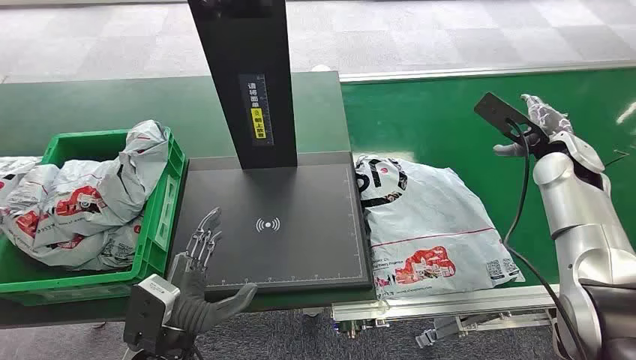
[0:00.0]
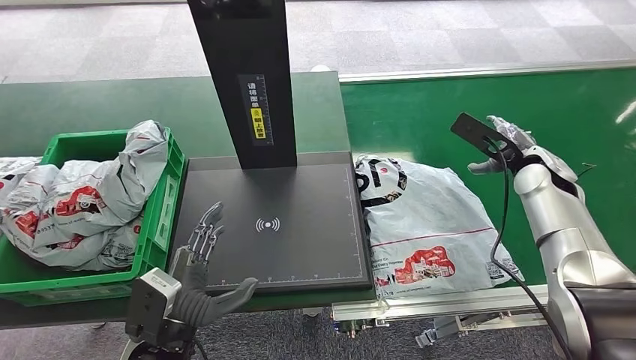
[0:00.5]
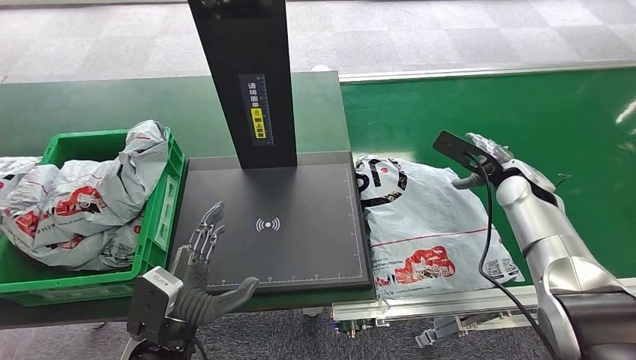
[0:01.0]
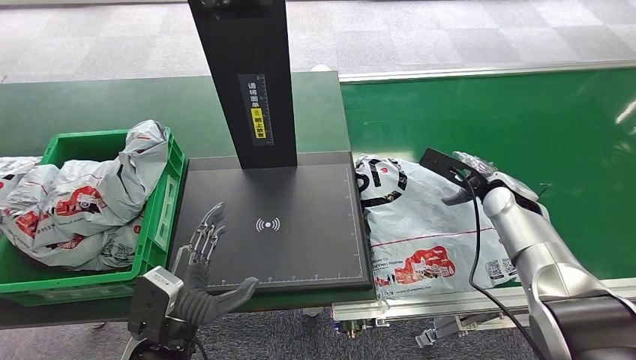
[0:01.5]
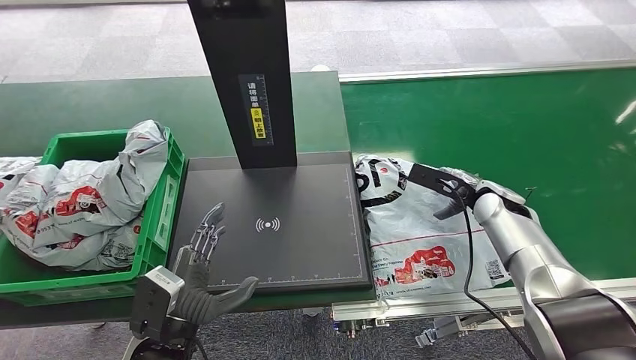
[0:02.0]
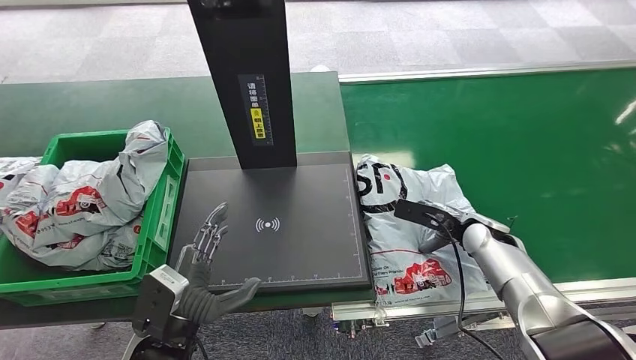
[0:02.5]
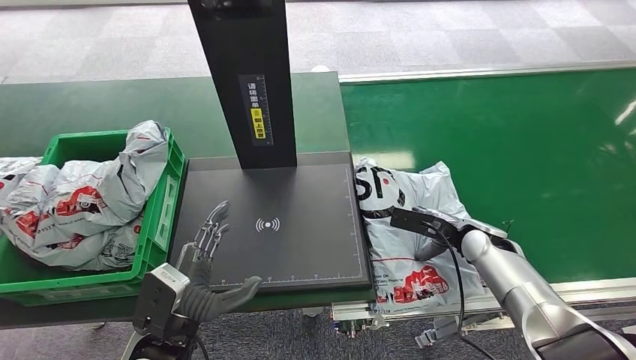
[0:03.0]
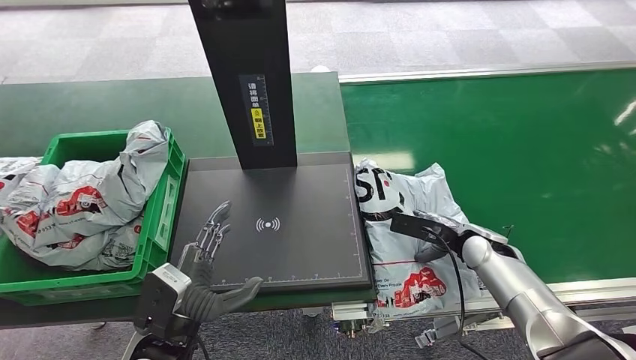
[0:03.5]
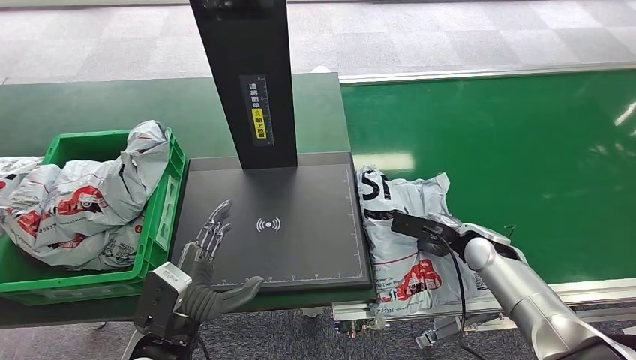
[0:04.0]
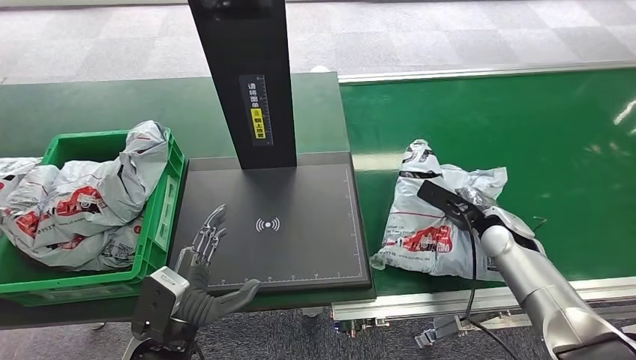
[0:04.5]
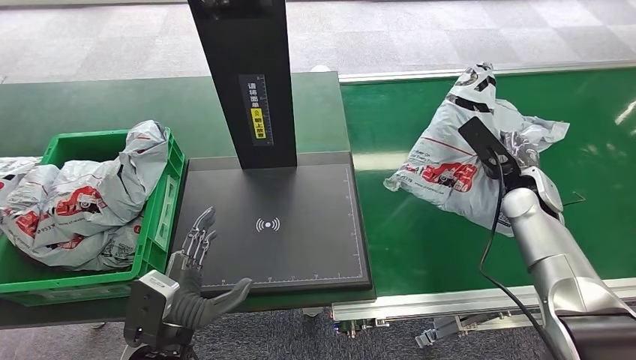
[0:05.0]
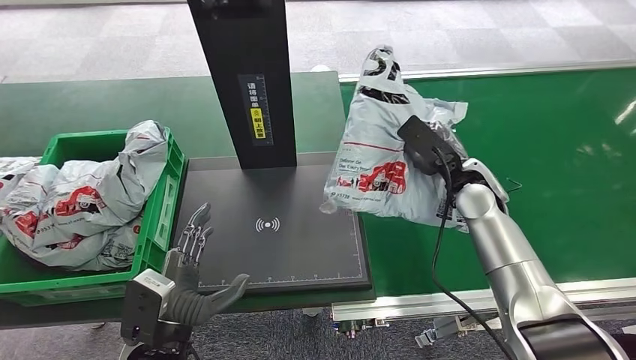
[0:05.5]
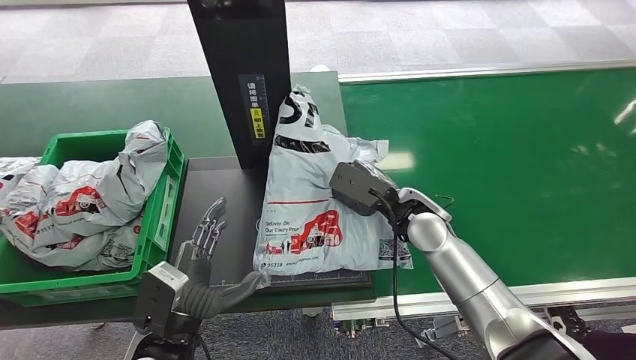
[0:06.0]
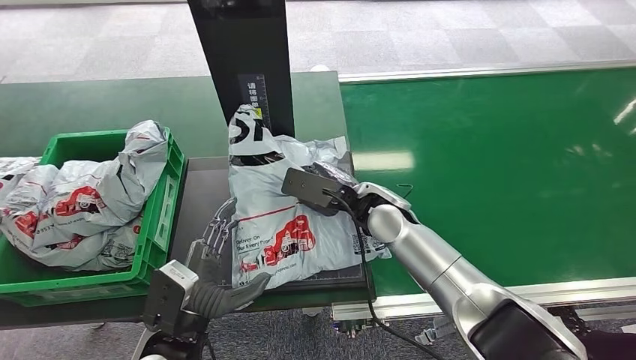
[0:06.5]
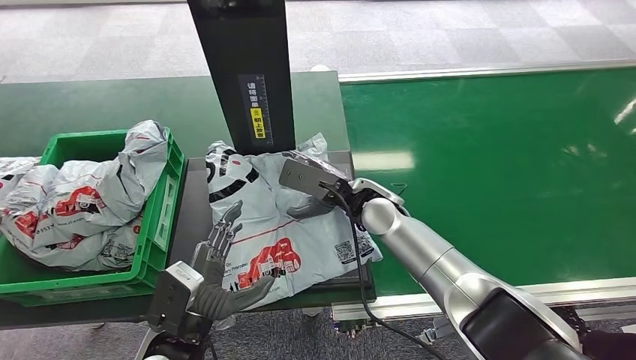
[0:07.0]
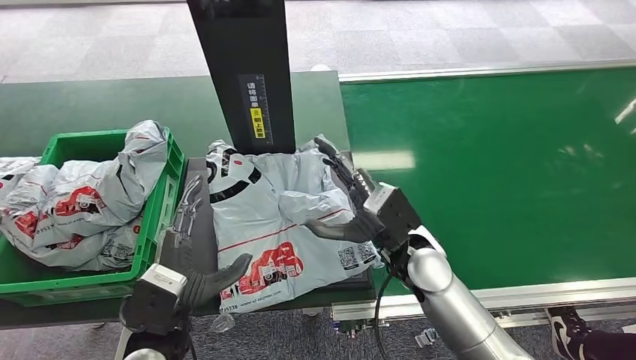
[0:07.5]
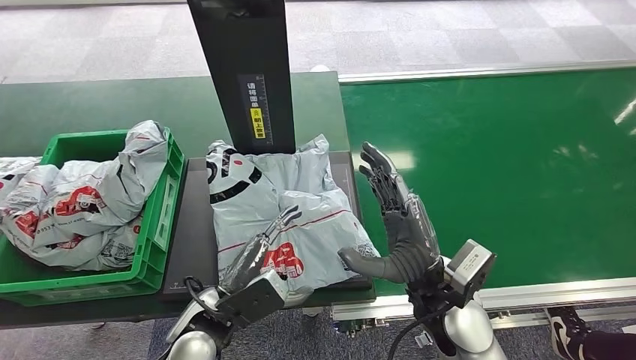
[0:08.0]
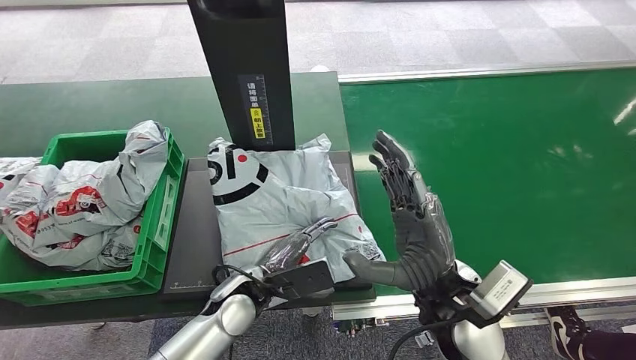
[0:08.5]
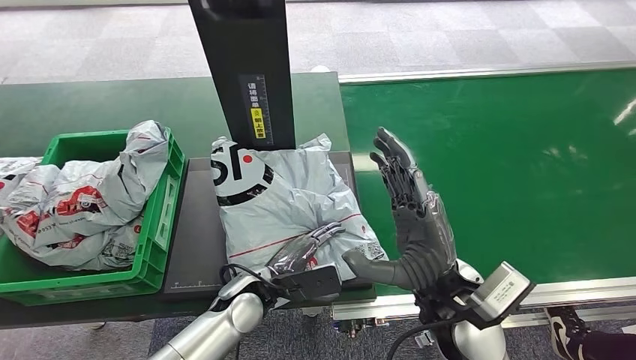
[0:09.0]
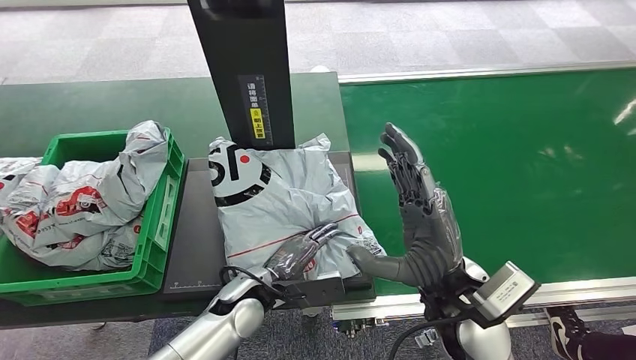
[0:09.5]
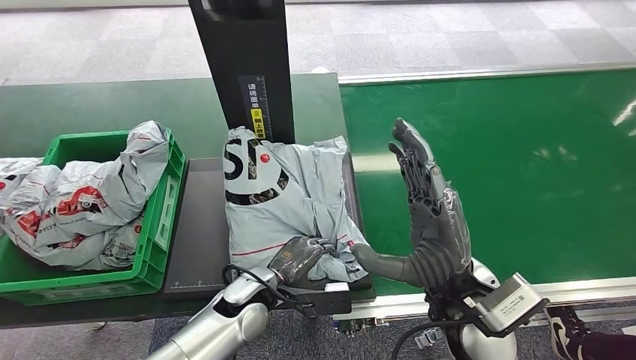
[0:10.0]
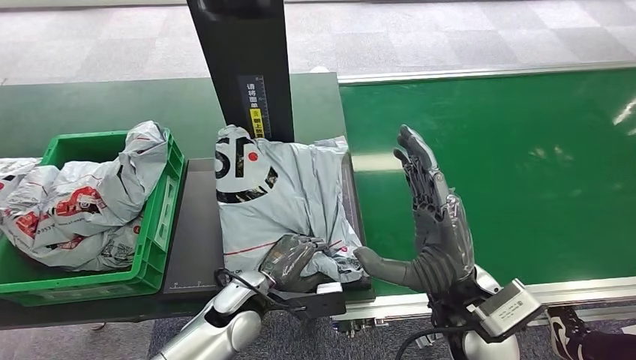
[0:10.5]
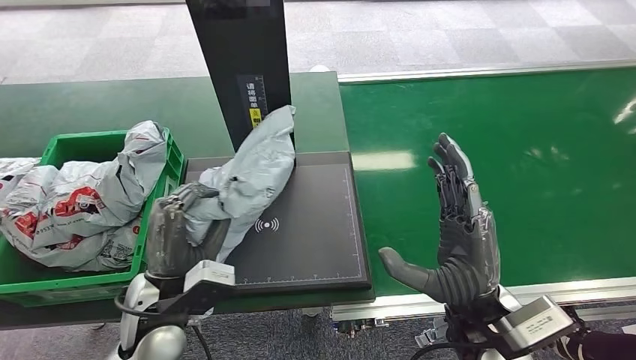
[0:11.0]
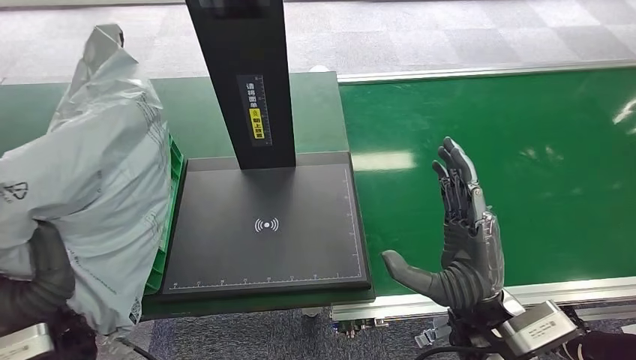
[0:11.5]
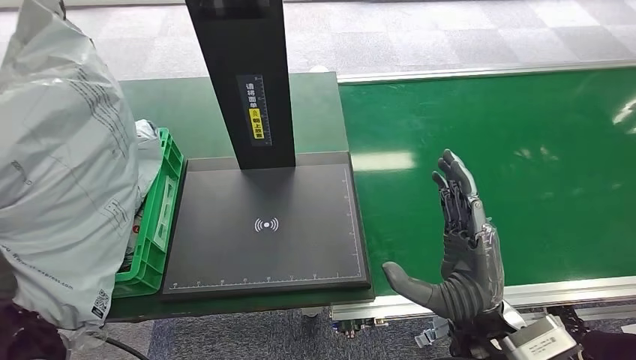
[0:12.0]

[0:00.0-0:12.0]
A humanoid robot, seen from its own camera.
Task of the whole recording: Weigh the package on the weighing device and place it in the left basket.
Step, 0:00.0 to 0:05.0: Pick up the package from the conveyor belt.
Step, 0:05.5 to 0:08.0: Place the package onto the inbound machine.
0:02.0 to 0:04.0: The right hand is displaced downward and backward by some 10 cm.
0:06.0 to 0:08.0: The left hand shifts by approximately 5 cm. Meanwhile the right hand travels backward by some 15 cm.
0:08.0 to 0:10.0: The left hand moves downward and forward, roughly 10 cm.

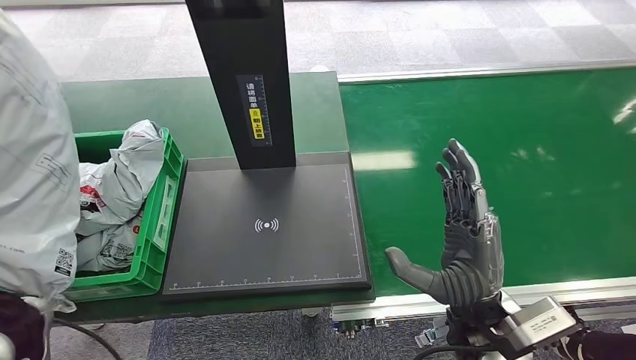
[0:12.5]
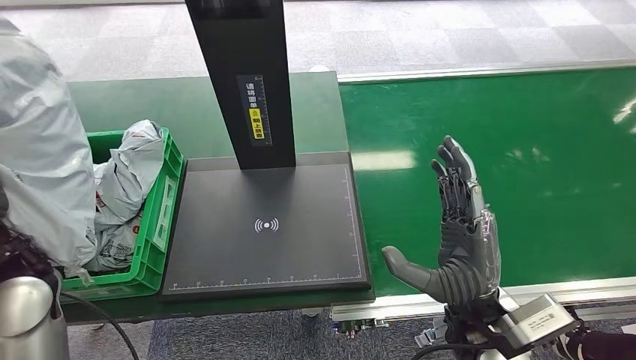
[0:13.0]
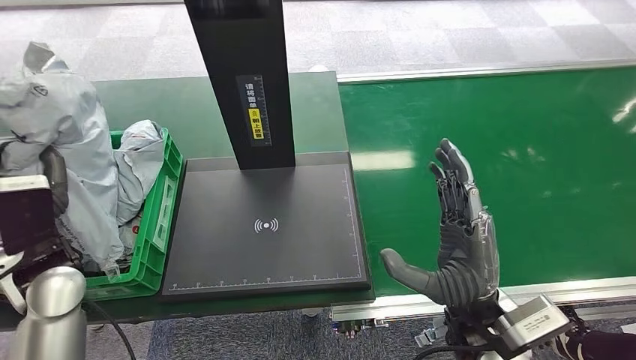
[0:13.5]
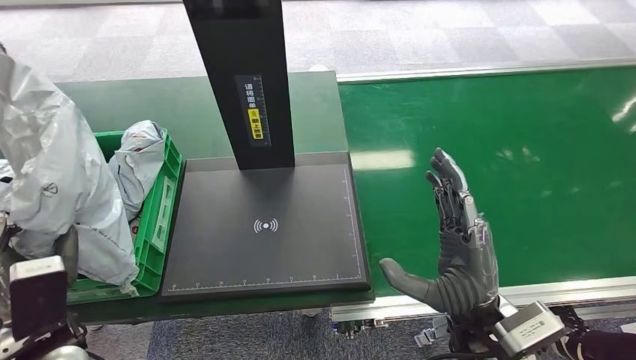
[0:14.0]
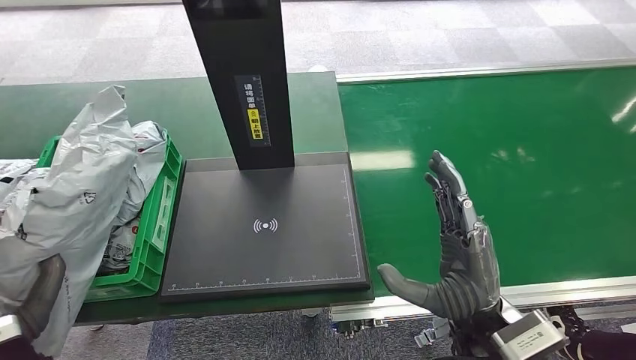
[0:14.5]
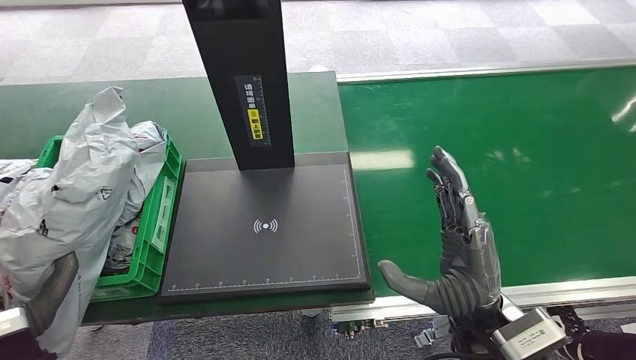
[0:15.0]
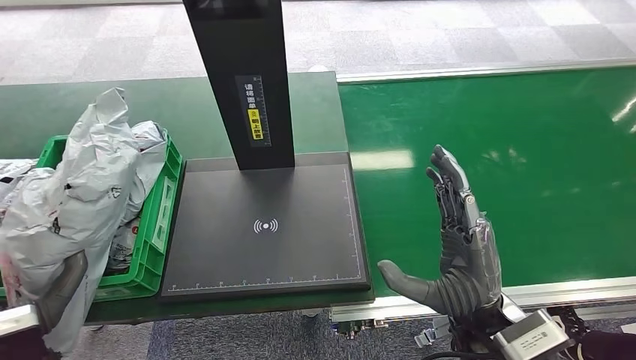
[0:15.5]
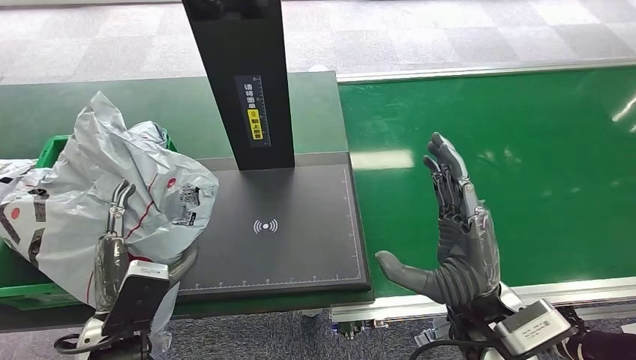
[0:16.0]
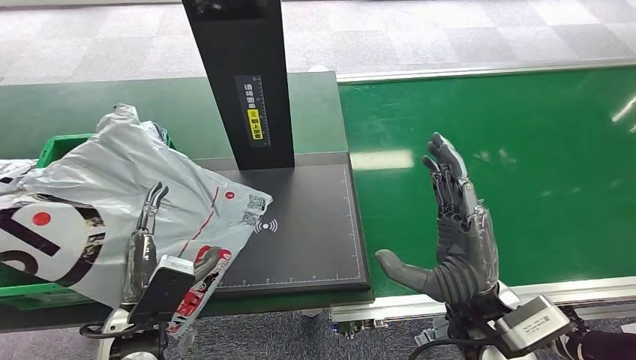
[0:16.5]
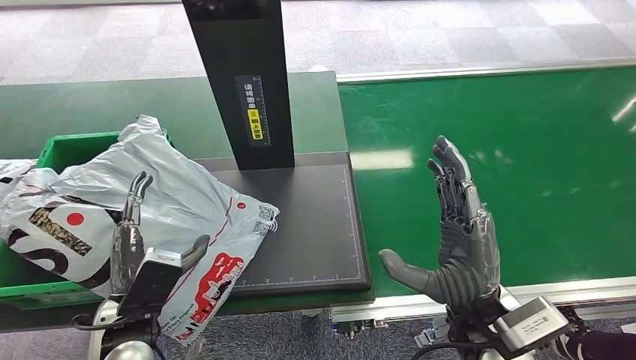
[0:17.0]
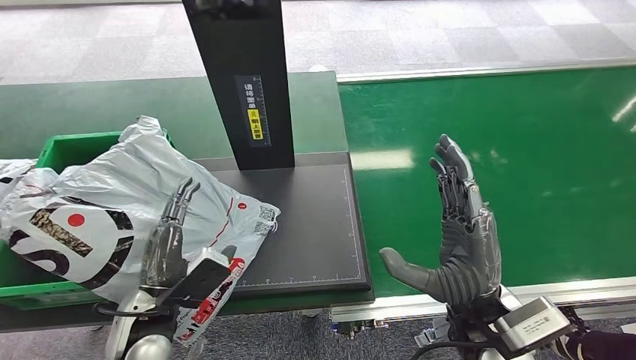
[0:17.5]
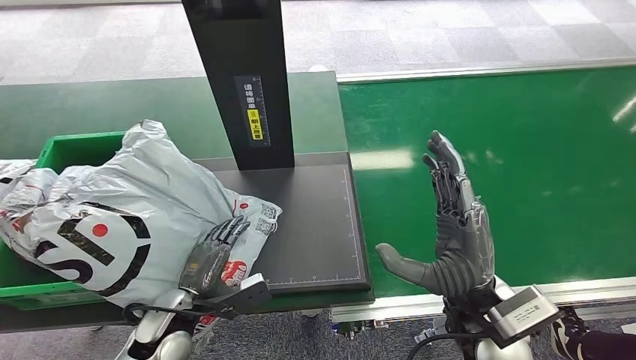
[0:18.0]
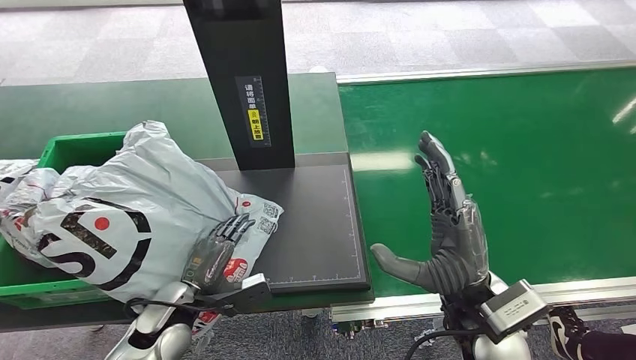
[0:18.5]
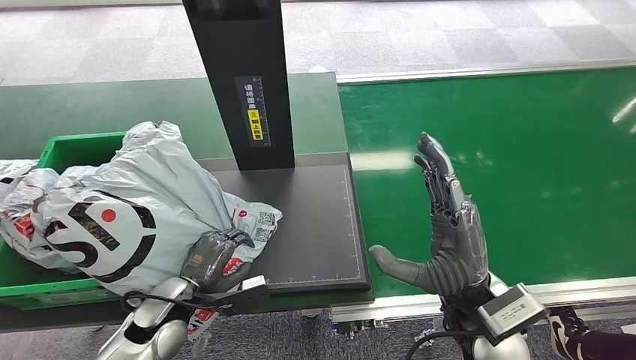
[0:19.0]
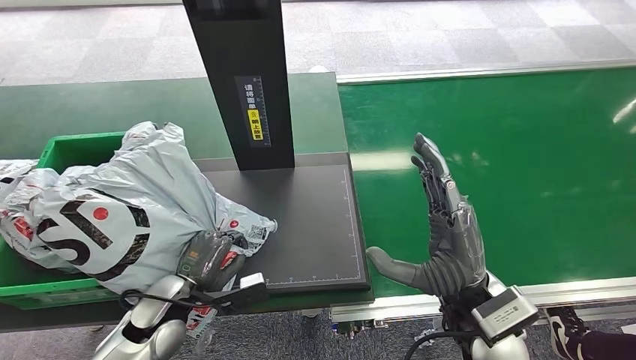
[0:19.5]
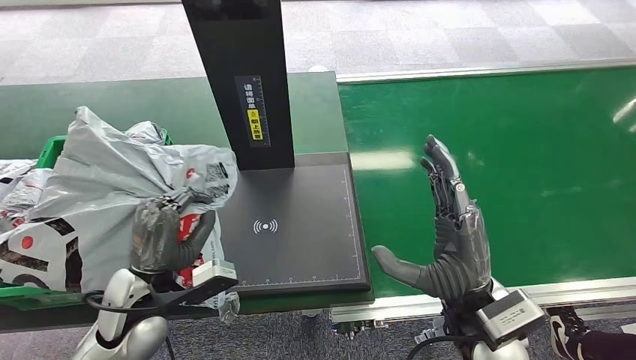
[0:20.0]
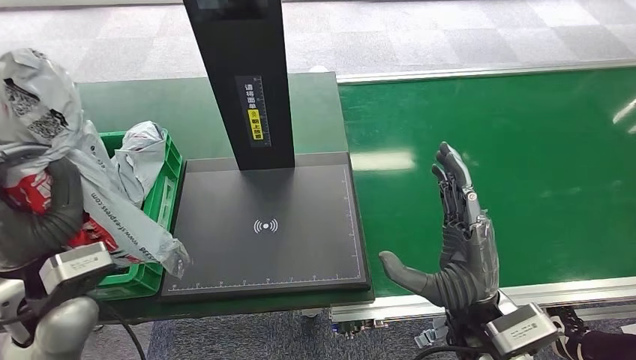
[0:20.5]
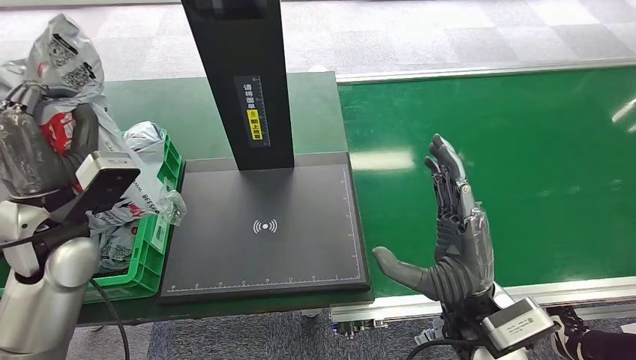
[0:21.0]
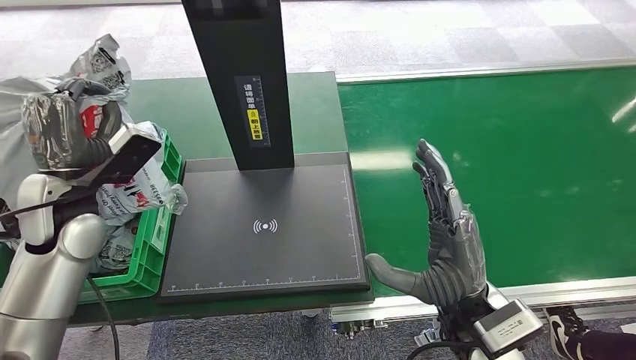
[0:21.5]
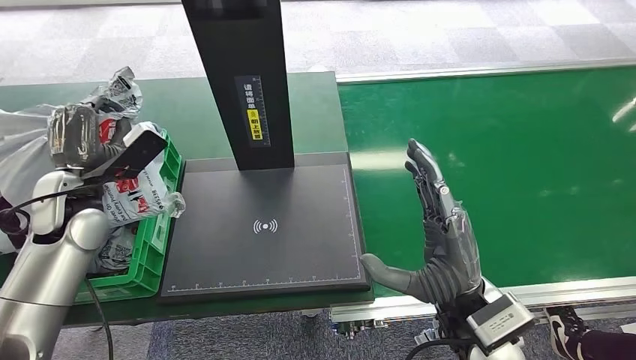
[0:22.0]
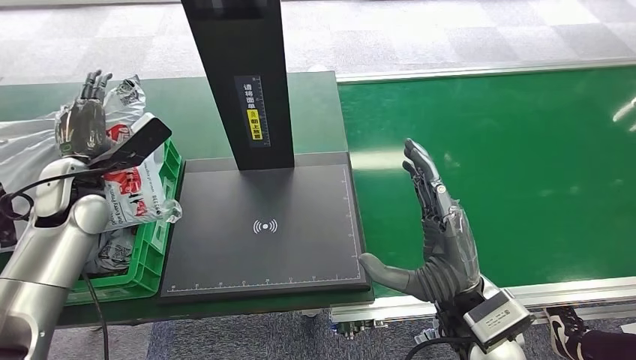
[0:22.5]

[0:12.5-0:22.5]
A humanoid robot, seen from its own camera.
Task of the whole recording: Weigh the package on the weighing device and place it in the left basket.
Step, 0:12.5 to 0:19.5: Place the package into the parcel locker.
0:12.5 to 0:14.5: The left hand is displaced backward and downward by some 10 cm.
0:16.5 to 0:18.5: The left hand travels downward and forward by approximately 10 cm.
